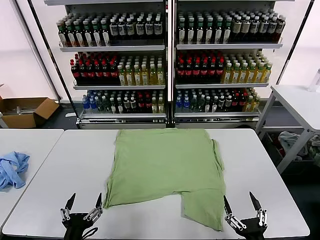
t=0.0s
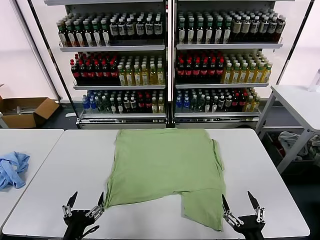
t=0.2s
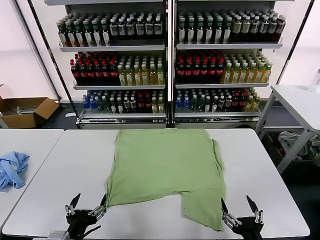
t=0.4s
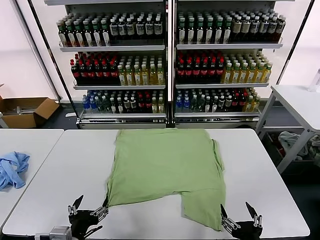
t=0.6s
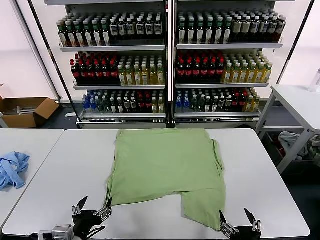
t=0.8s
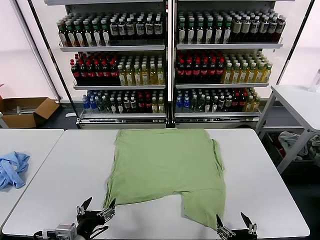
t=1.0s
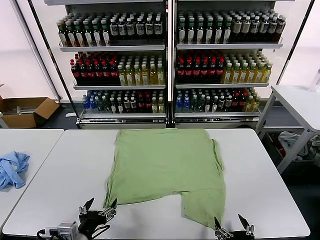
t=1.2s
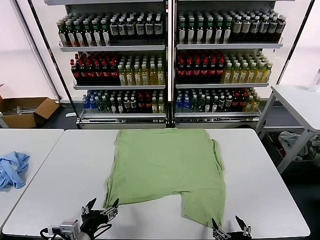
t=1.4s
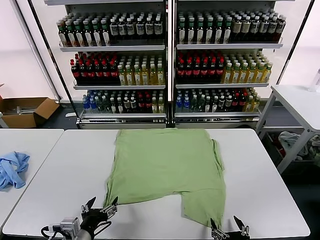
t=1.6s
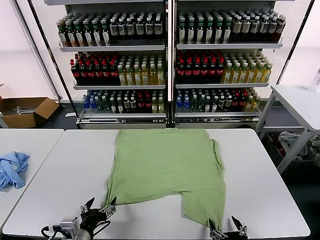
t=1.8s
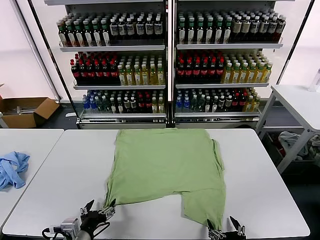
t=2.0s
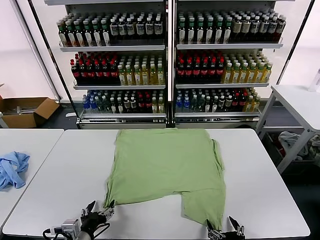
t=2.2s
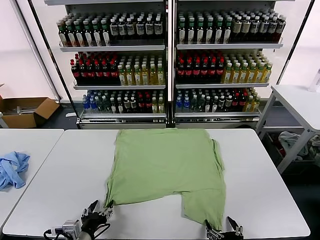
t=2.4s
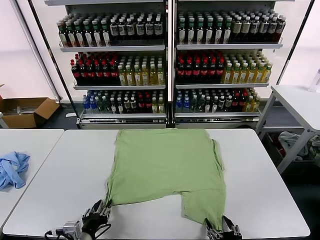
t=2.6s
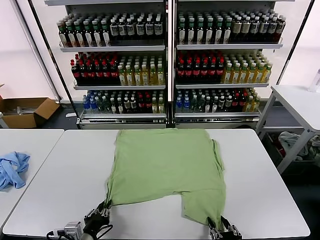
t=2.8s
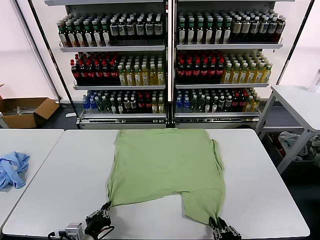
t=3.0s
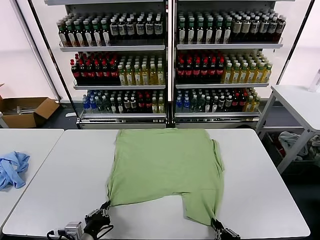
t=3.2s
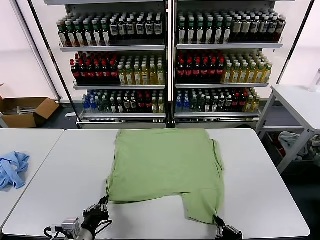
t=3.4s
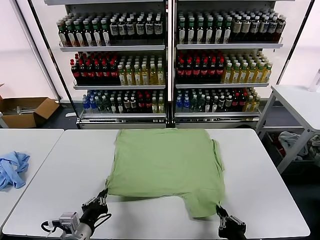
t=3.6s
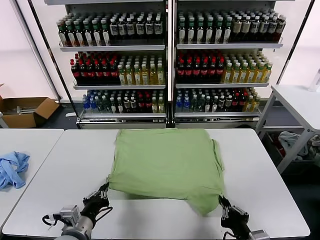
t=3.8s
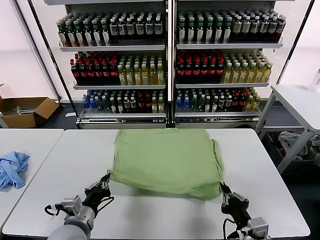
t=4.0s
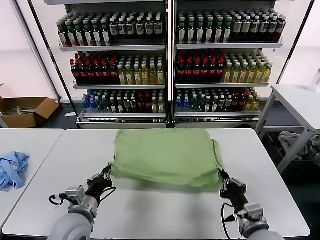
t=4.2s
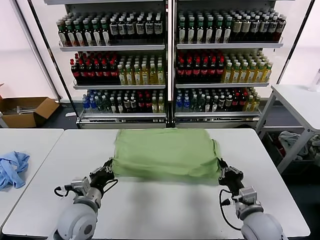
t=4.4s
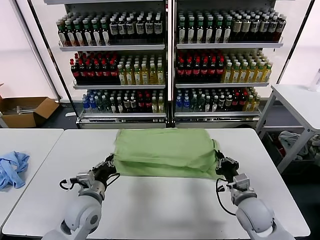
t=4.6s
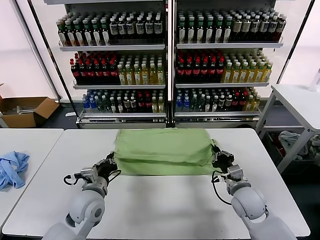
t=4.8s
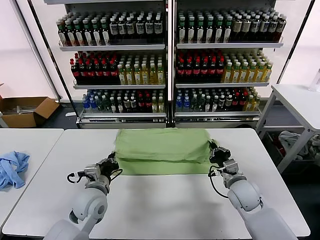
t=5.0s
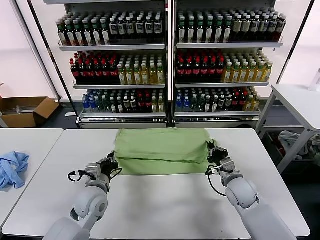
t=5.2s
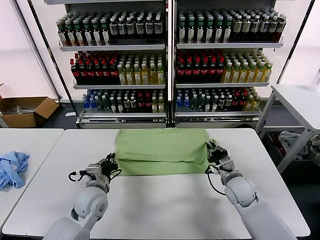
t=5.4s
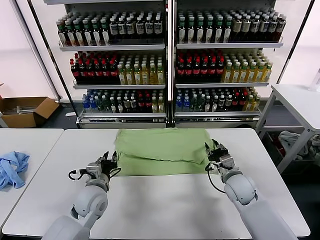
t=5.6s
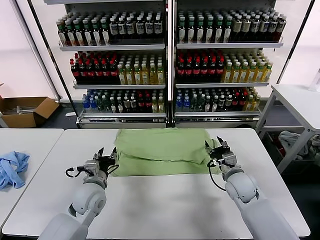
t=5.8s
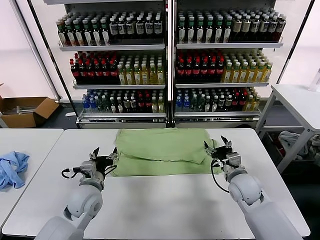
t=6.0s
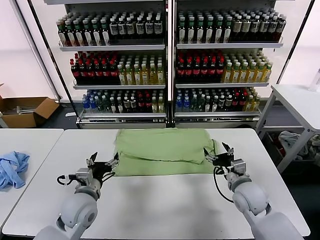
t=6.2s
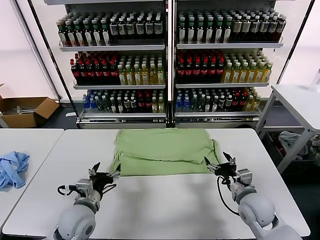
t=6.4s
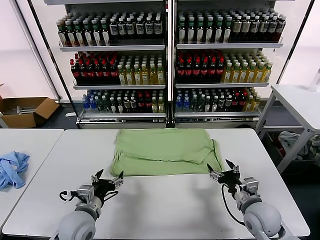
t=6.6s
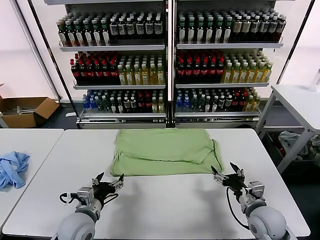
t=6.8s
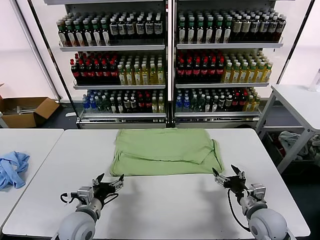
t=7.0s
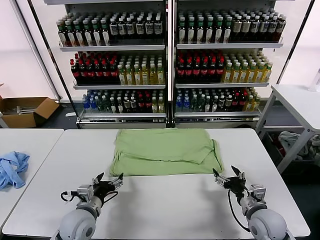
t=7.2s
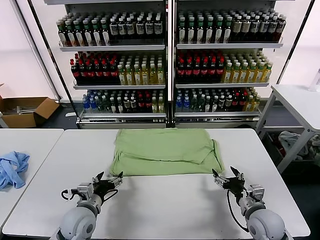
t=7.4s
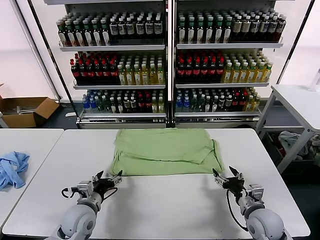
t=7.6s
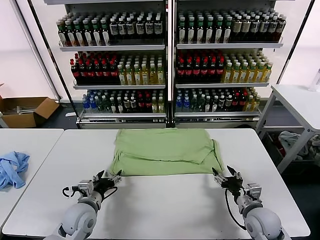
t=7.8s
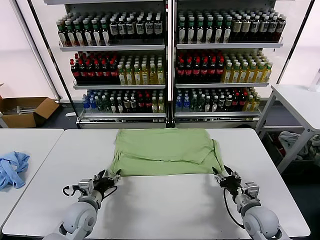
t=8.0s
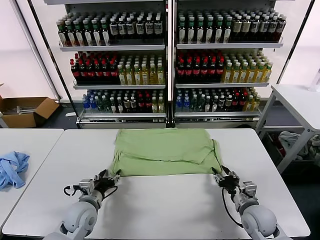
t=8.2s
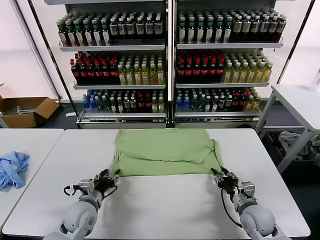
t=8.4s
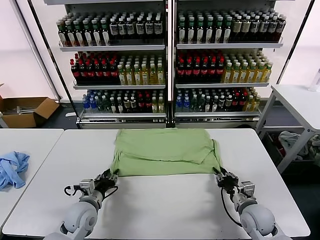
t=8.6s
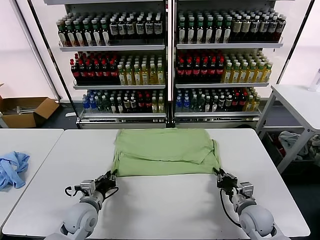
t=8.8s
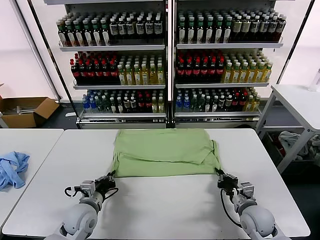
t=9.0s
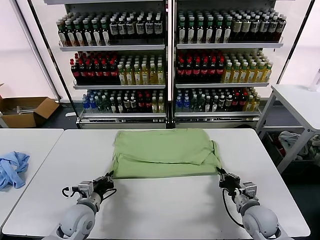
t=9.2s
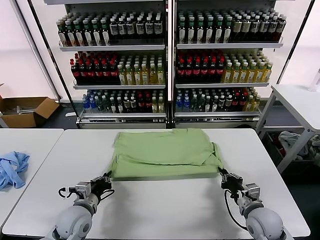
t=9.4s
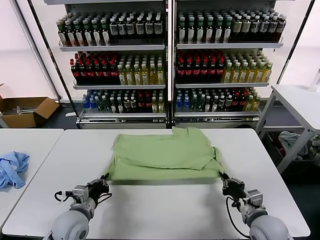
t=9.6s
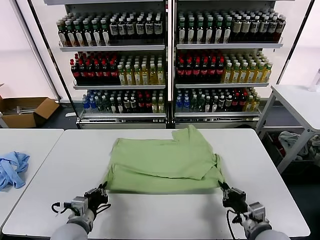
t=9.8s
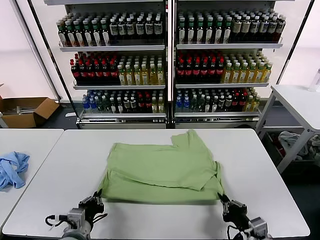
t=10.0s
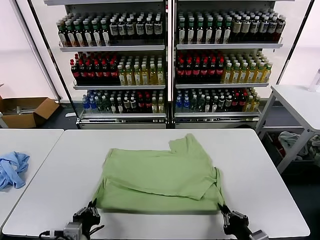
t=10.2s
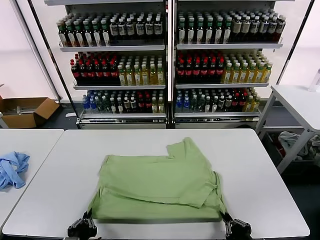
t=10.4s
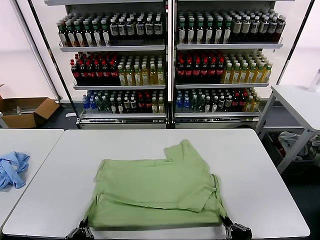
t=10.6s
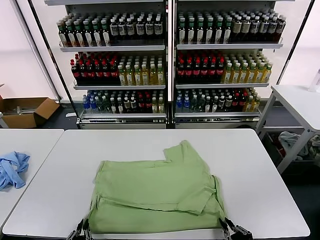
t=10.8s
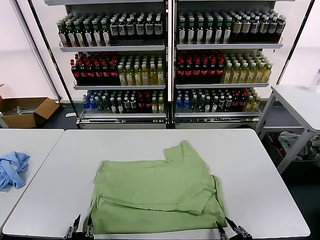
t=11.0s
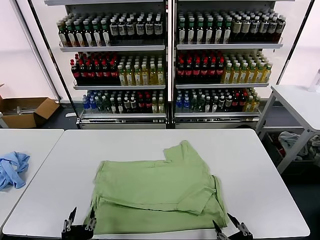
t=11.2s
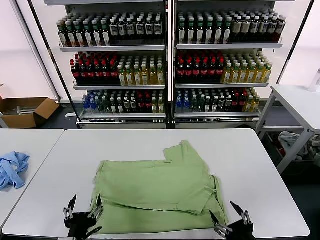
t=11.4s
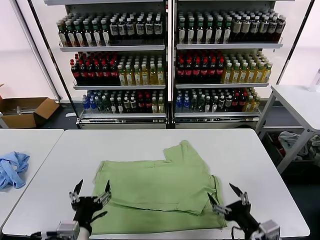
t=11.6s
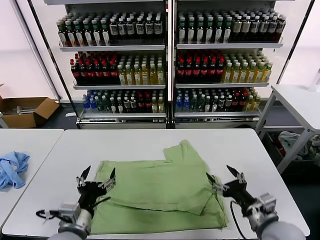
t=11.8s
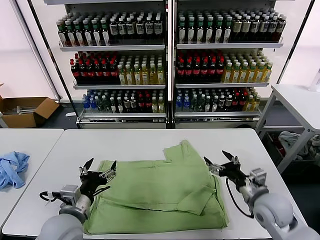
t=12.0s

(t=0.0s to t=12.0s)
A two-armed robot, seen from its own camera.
Task of the whole recording: fold and organize the clothes.
Step, t=0.0s - t=3.0s: use both grippers simultaneously to clamp the lower edge of the clothing fabric.
Step, t=3.2s - t=5.4s: use both grippers to drag the lower edge of the fabric forward and fold it over the upper edge.
Step, t=5.6s - t=11.0s: Drag the clothes downward with both gripper.
t=1.6s - t=3.0s: The right gripper closes its fingers. Meanwhile the left gripper closes.
t=3.0s - t=4.4s: The right gripper moves forward, roughly 20 cm. Meanwhile the left gripper moves forward and upward, some 15 cm.
t=4.4s - t=6.0s: Both grippers move forward, approximately 5 cm. The right gripper opens up, while the left gripper opens.
t=6.0s - t=7.6s: The left gripper shifts approximately 5 cm downward. The right gripper heads backward and downward, covering approximately 10 cm.
t=7.6s - t=9.0s: The left gripper closes its fingers; the right gripper closes up.
t=9.0s - t=10.4s: The two grippers go some 20 cm backward.
t=10.4s - t=12.0s: The right gripper shifts roughly 20 cm forward, and opens its fingers; the left gripper travels forward and upward by approximately 15 cm, and opens.

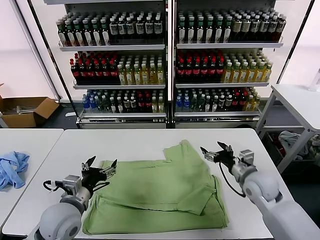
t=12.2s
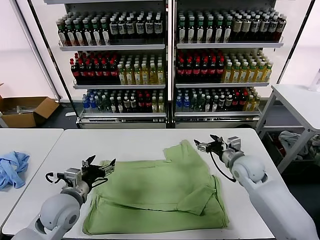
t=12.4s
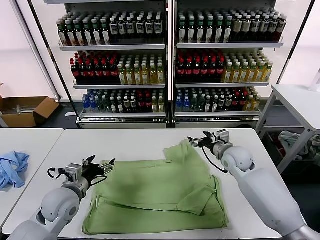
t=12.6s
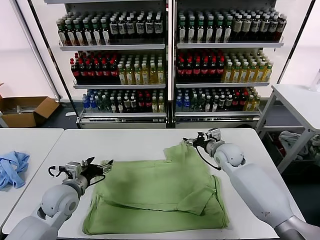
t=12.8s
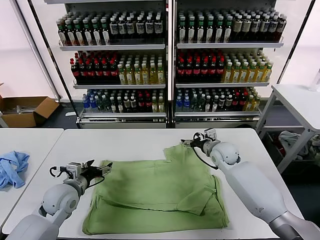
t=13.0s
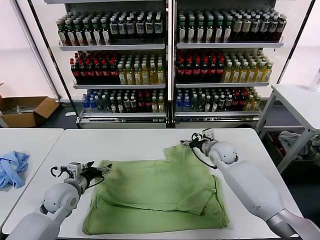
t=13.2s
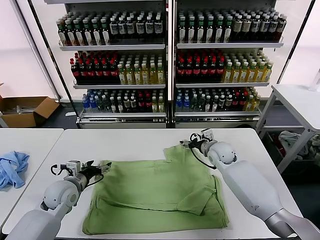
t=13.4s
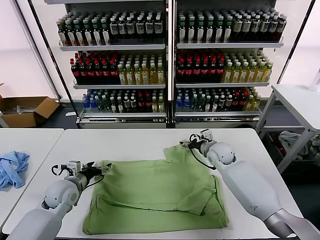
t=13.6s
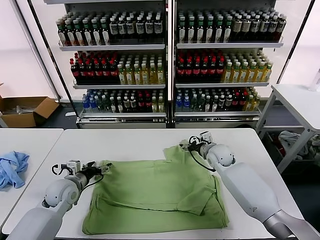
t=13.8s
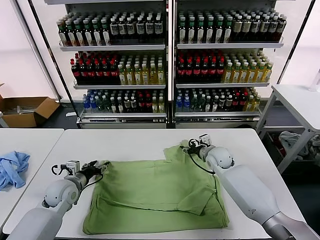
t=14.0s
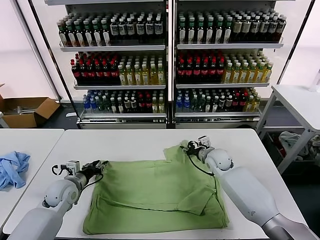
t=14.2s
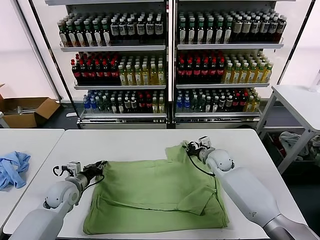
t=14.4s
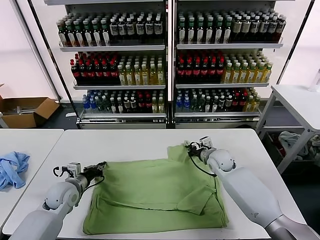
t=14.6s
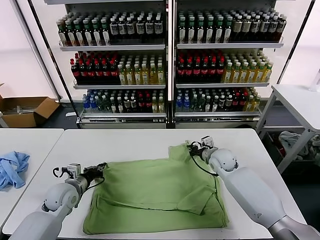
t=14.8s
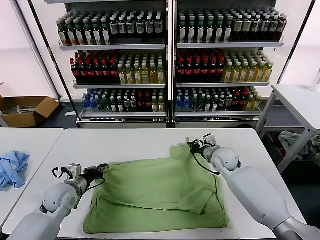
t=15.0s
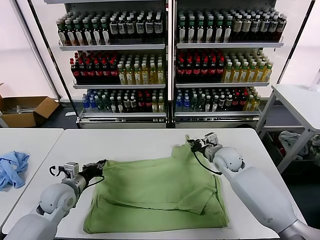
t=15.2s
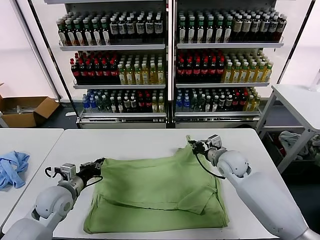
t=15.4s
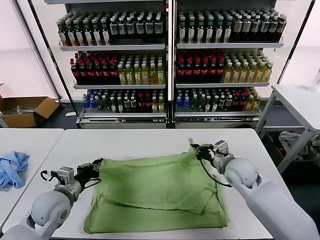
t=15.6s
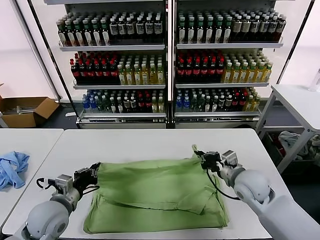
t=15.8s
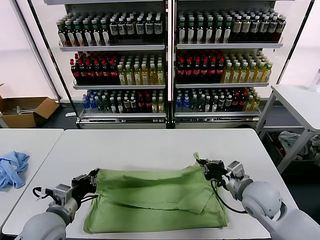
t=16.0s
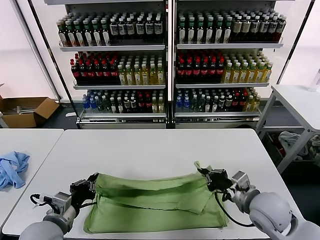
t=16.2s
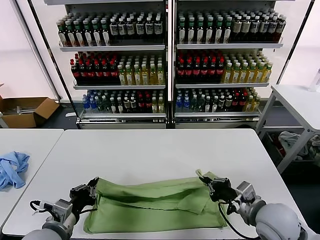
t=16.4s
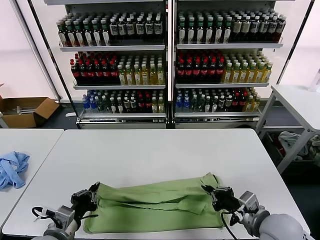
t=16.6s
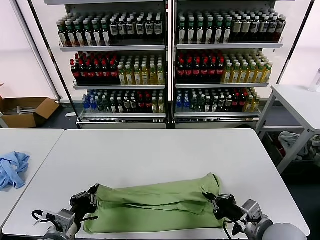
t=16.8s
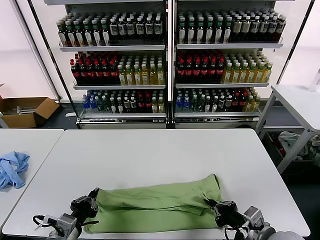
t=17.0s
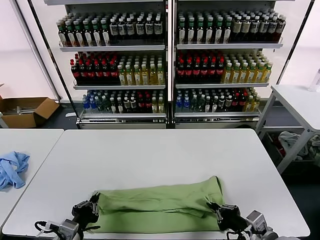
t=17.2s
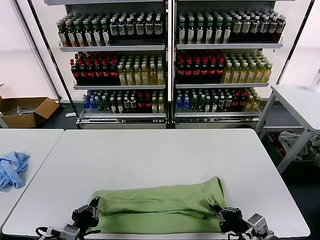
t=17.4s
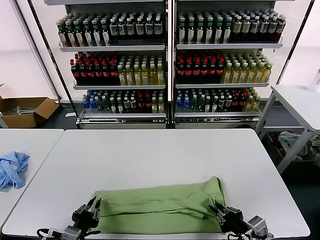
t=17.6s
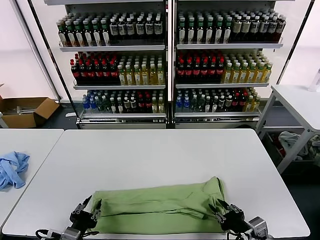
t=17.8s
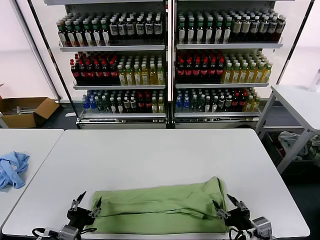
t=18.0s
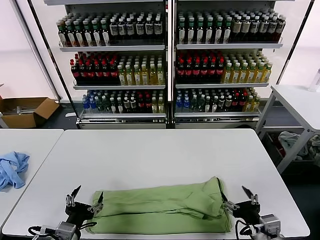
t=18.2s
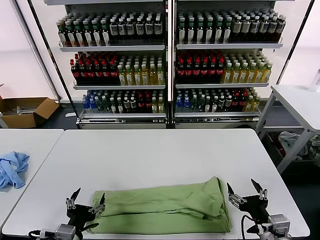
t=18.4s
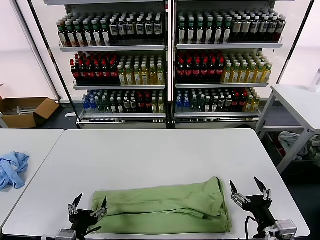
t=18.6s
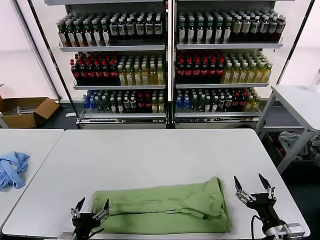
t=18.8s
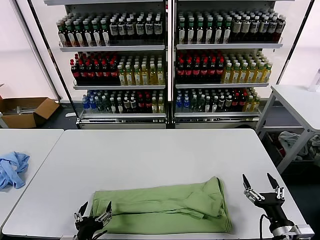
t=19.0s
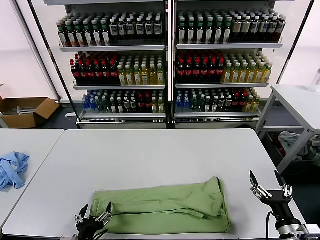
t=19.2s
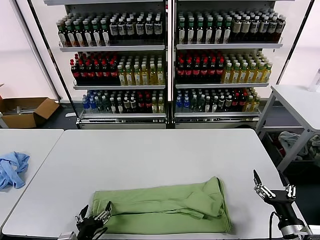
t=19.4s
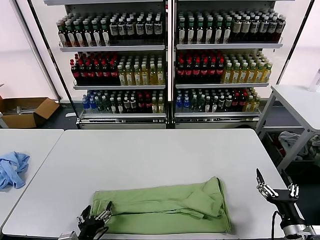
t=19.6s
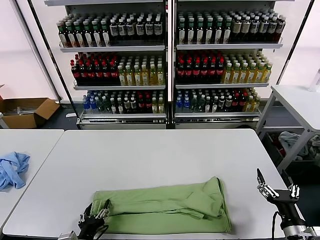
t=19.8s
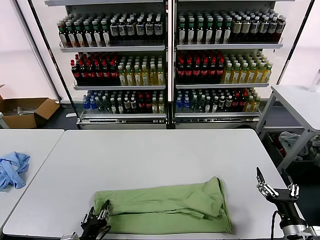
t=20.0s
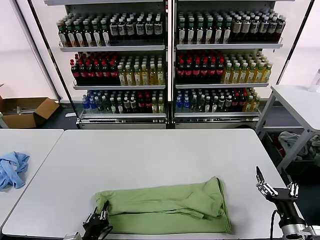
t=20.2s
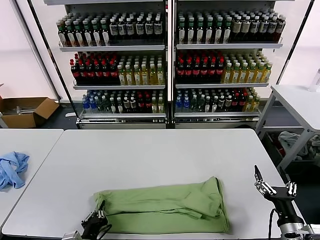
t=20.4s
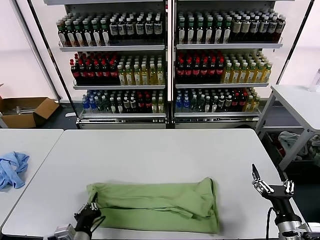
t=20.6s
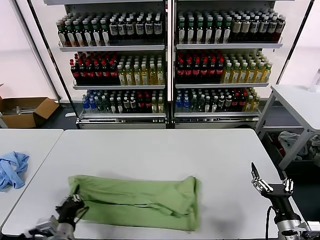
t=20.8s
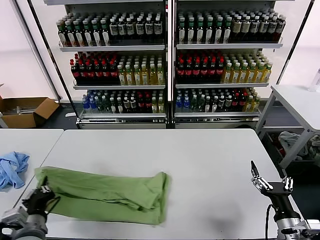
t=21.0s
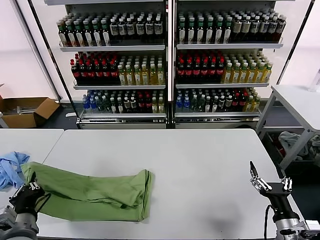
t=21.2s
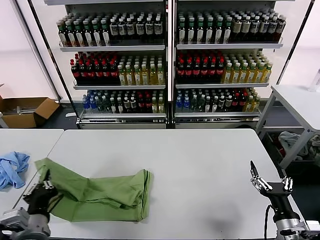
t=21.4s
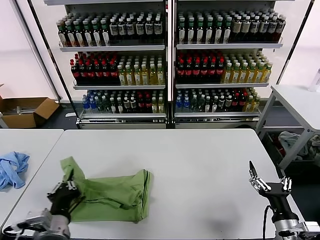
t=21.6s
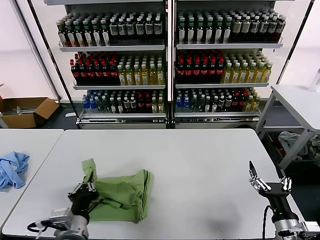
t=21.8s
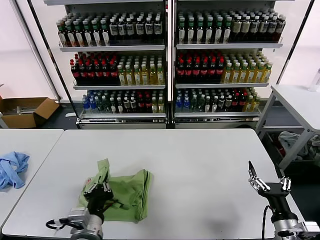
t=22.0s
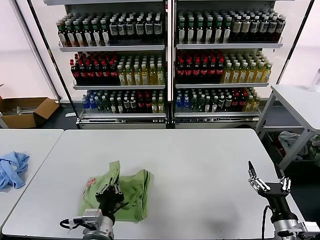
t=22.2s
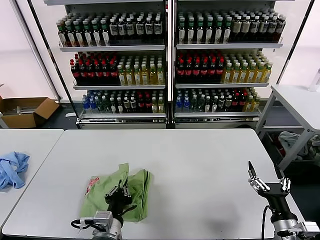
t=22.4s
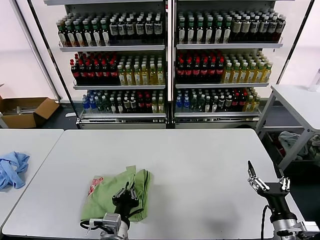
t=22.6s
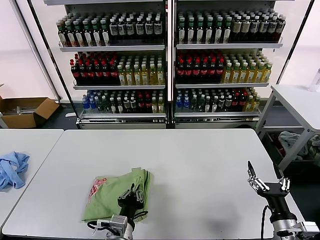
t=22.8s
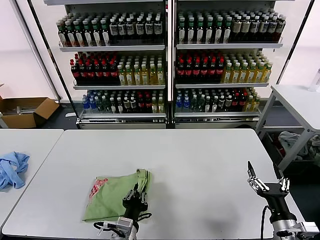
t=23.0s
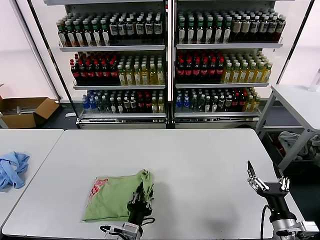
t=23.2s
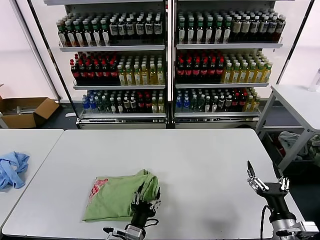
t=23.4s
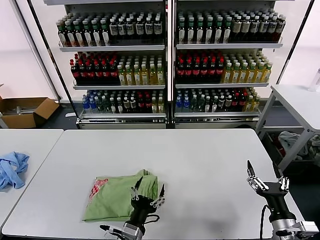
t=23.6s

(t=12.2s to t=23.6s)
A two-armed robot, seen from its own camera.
Task of the whole recording: fold and organize the clothes.
Step, t=12.2s - t=14.6s: use both grippers simultaneously to clamp the upper edge of the clothing fabric.
Step, t=14.8s - t=17.8s: use both grippers to drag the upper edge of the fabric backward and fold it over the lower edge.
Step, t=18.2s - t=20.2s: use the left gripper to clamp the left edge of the fabric.
Step, t=20.4s - t=23.2s: use the left gripper to drag the left edge of the fabric to the left and folds it over the right edge.
t=12.2s - t=13.6s: The right gripper moves forward and to the left, roughly 15 cm. Meanwhile the left gripper is displaced forward, to the left and downward by approximately 15 cm.
t=13.6s - t=15.0s: The left gripper closes up, while the right gripper closes its fingers.
t=15.0s - t=16.4s: The left gripper moves backward, about 15 cm. The right gripper travels backward by roughly 25 cm.
t=16.4s - t=17.8s: Both grippers travel together backward, some 5 cm. The left gripper opens its fingers. Meanwhile the right gripper opens its fingers.
t=17.8s - t=19.4s: The left gripper opens up. Meanwhile the right gripper goes approximately 10 cm to the right, and opens its fingers.
t=19.4s - t=20.8s: The left gripper shifts by about 5 cm, and closes its fingers.
t=20.8s - t=22.2s: The left gripper travels to the right by roughly 10 cm.
t=22.2s - t=23.6s: The left gripper goes about 10 cm downward and to the right, and opens up.
